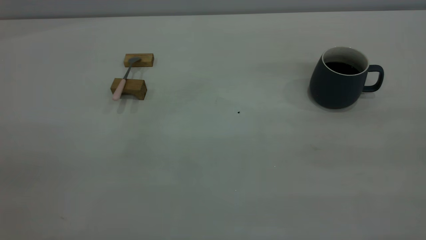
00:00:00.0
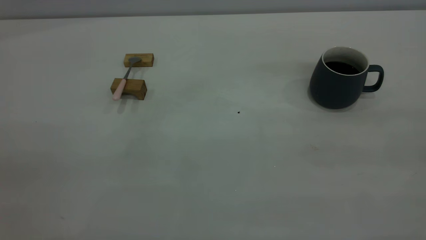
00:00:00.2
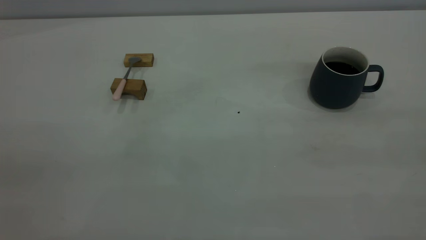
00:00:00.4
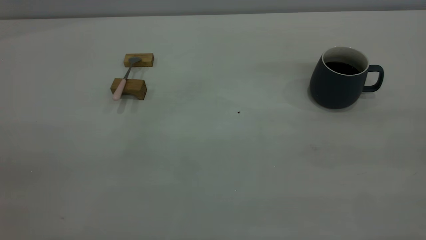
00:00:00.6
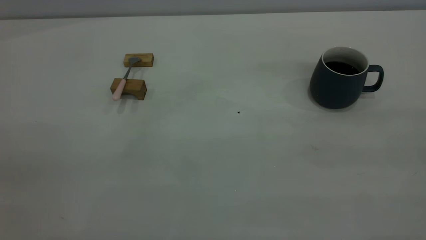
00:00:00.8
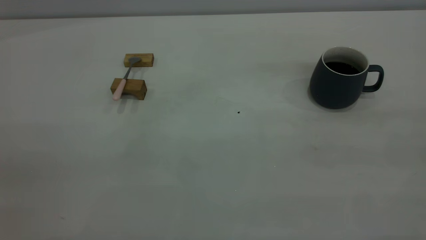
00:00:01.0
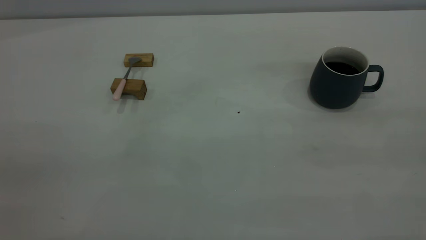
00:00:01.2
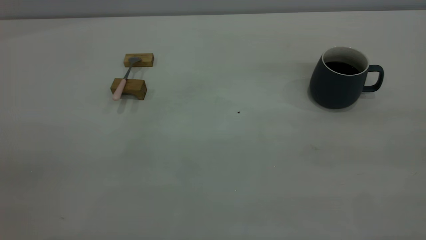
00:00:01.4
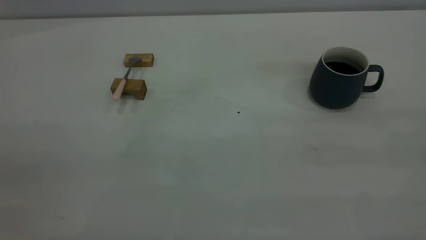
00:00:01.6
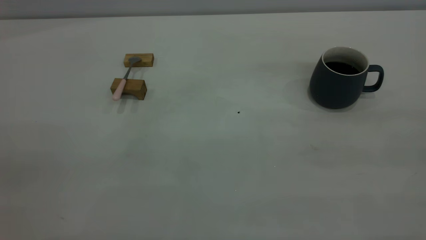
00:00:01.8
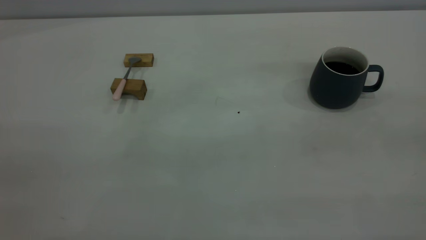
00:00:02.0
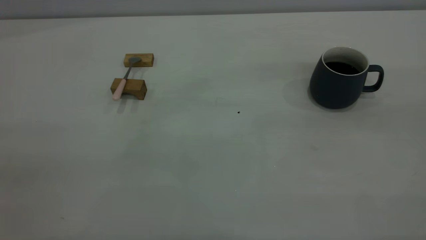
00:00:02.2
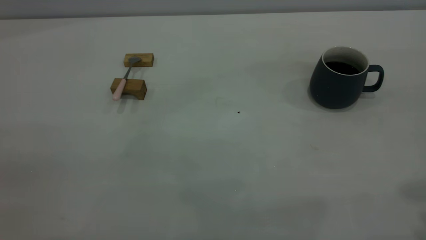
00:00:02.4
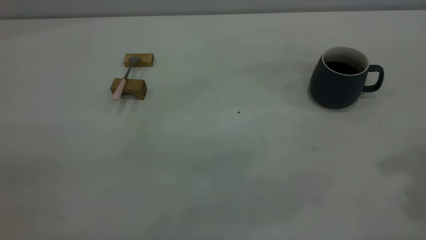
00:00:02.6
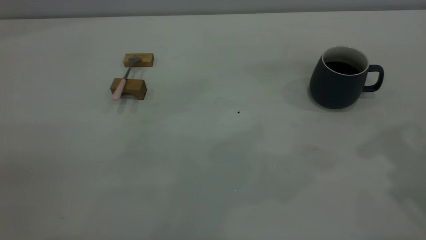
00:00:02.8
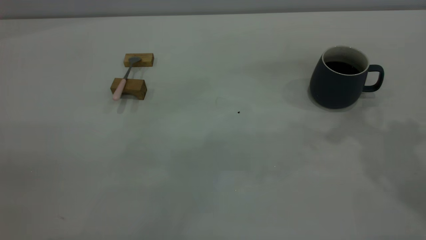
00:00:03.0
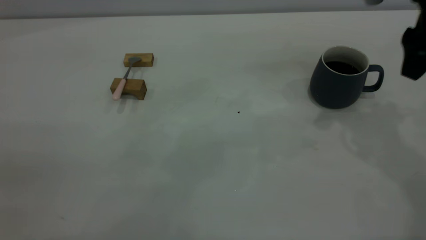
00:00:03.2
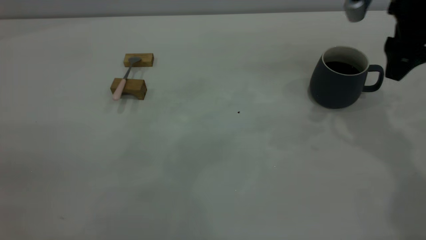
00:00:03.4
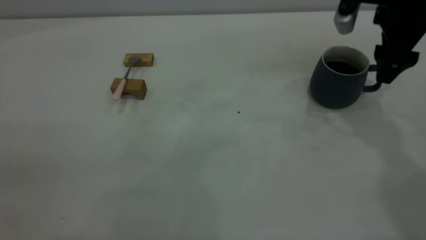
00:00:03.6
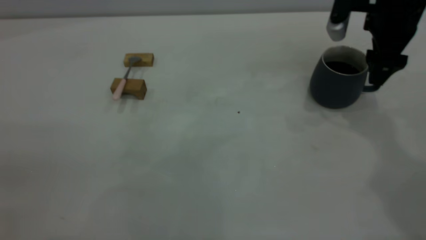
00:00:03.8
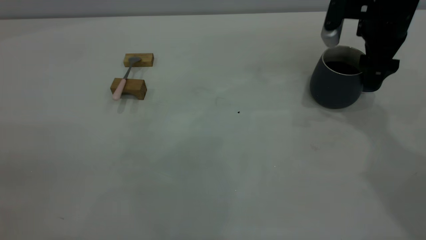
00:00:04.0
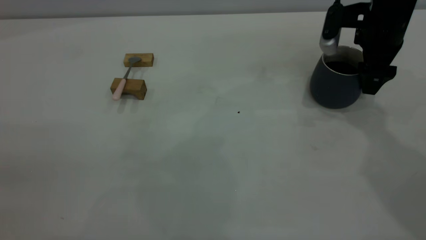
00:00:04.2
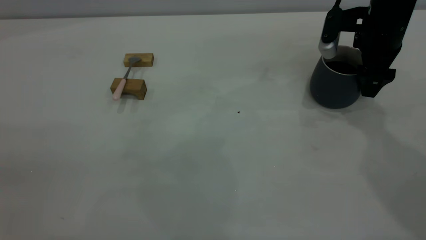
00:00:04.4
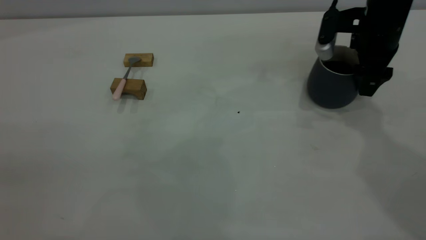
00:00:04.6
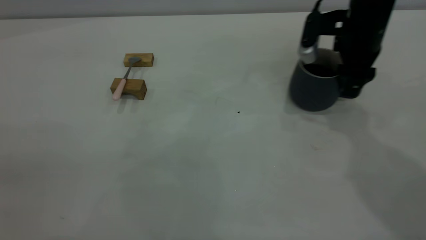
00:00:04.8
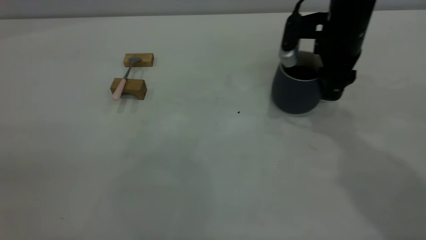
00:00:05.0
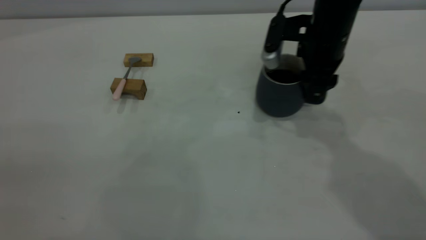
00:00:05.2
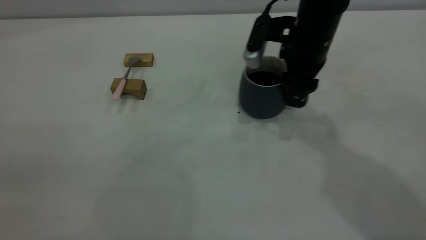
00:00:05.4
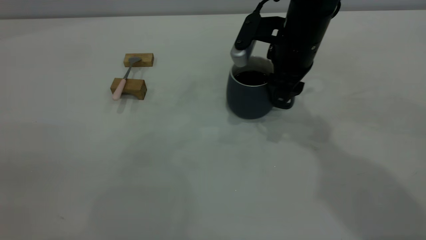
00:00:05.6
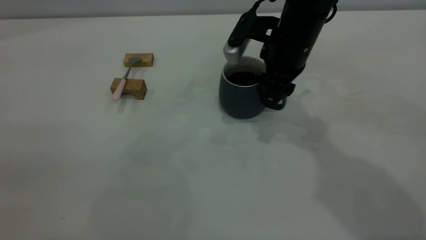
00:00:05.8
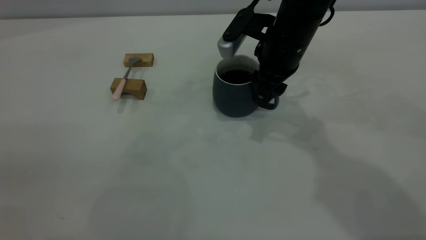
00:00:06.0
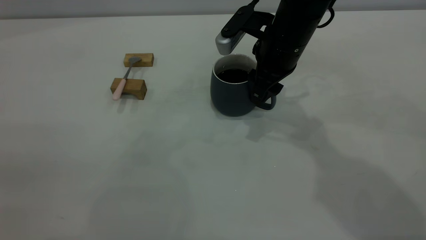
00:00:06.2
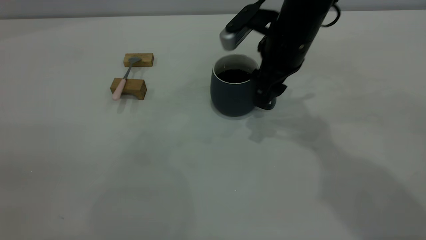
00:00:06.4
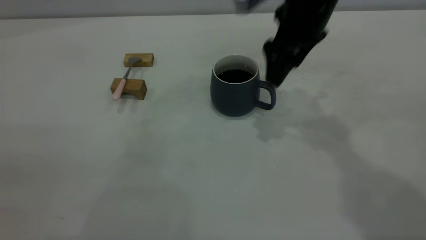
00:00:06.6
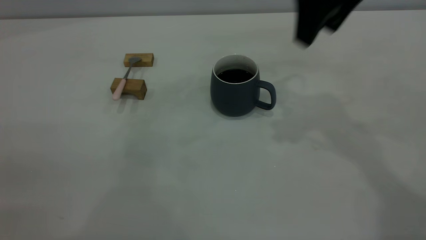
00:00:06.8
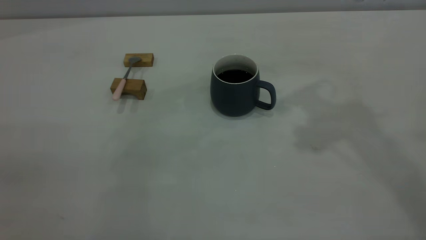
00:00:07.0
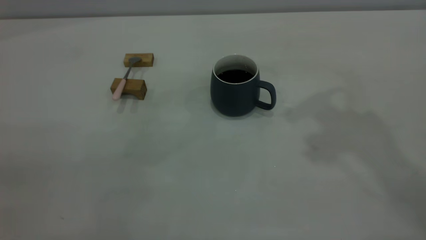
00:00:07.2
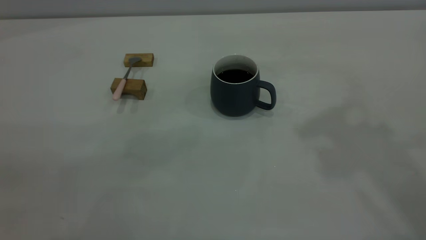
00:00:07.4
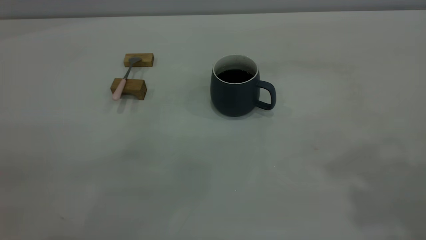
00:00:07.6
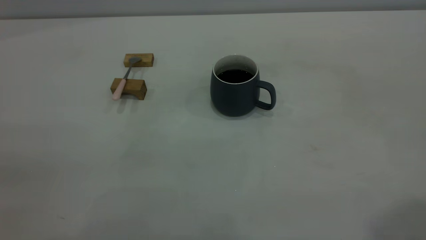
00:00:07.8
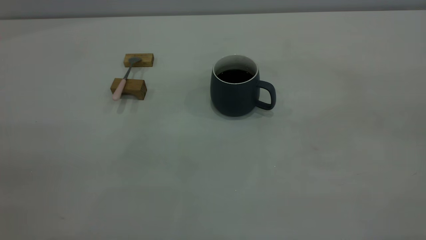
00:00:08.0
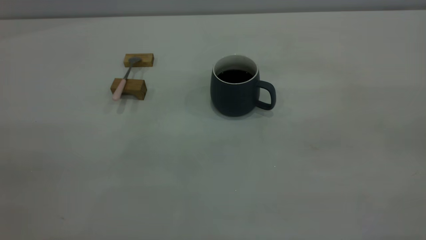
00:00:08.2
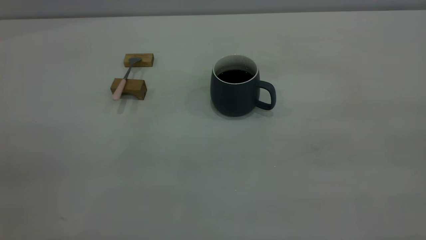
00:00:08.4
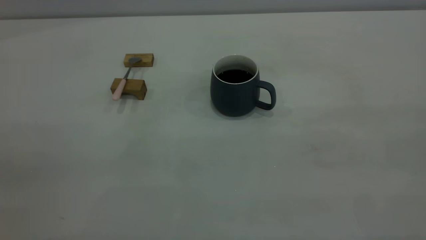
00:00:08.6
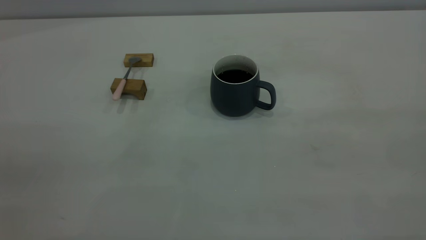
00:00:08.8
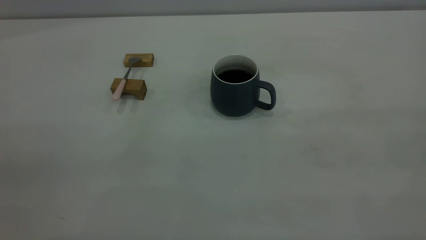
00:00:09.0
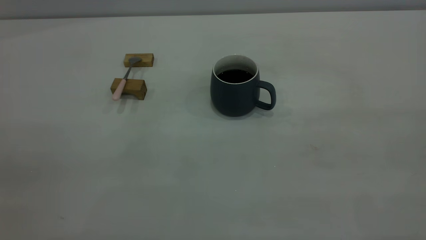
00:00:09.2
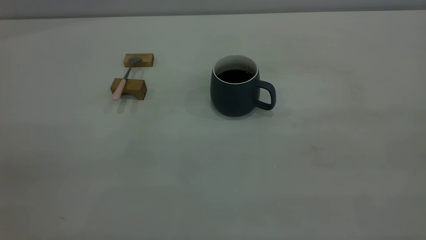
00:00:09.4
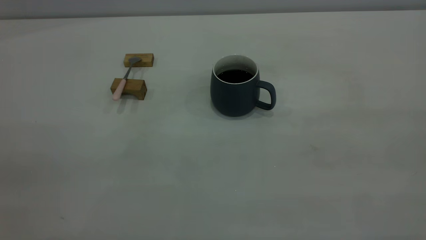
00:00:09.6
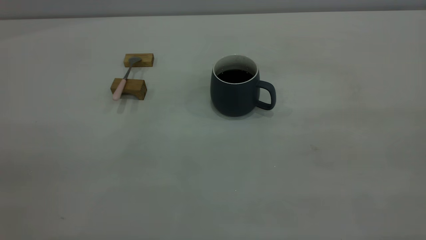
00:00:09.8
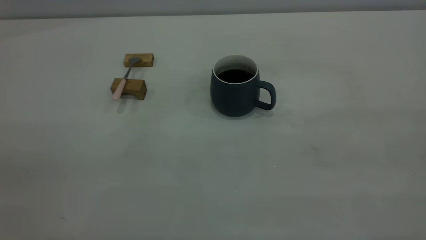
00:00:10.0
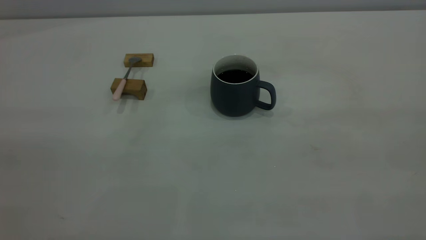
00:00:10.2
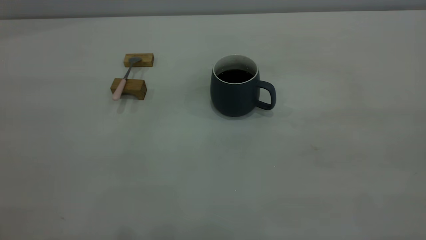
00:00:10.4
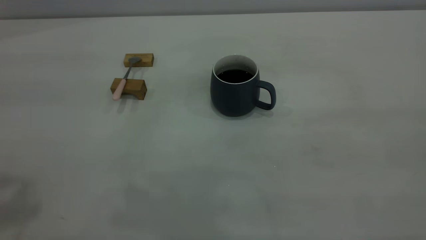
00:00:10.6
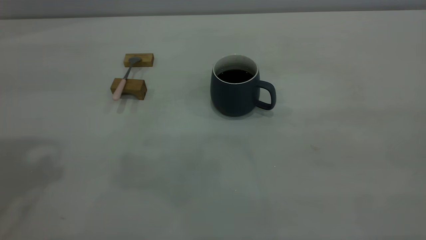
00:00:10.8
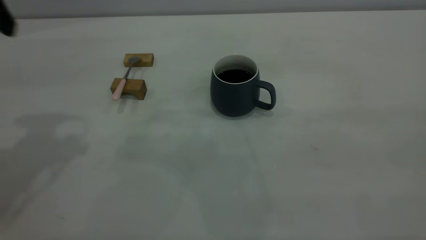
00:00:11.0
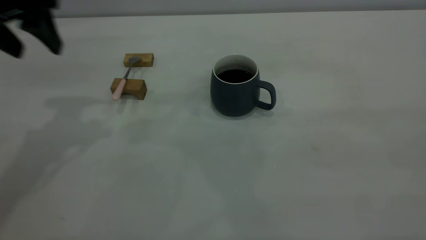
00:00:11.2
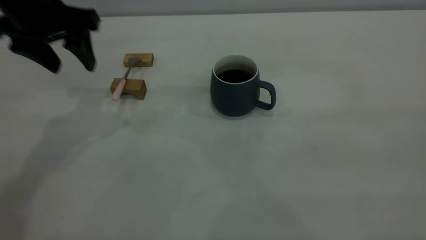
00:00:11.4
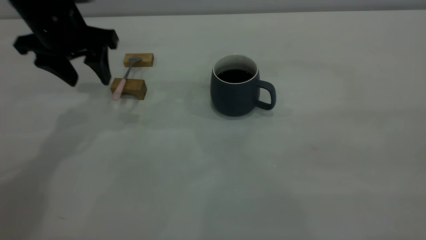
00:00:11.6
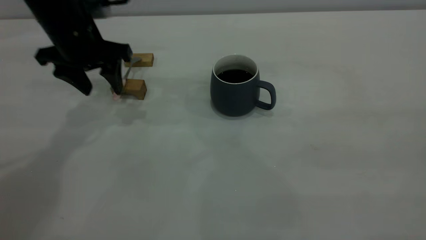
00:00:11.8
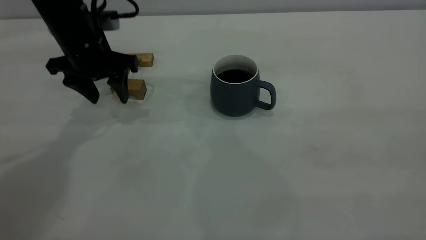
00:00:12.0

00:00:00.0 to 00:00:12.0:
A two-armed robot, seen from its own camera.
Step, 00:00:00.0 to 00:00:06.6: Move the cup with coffee to the center of view.
00:00:00.0 to 00:00:01.6: Neither gripper changes place.
00:00:03.0 to 00:00:04.4: The right gripper travels downward and forward by about 20 cm.
00:00:04.4 to 00:00:06.0: The right gripper heads to the left, covering about 15 cm, and closes up.
00:00:06.0 to 00:00:07.6: The right gripper is displaced upward, backward and to the right by about 40 cm, and opens its fingers.
00:00:10.4 to 00:00:12.0: The left gripper heads forward and downward, covering about 40 cm.

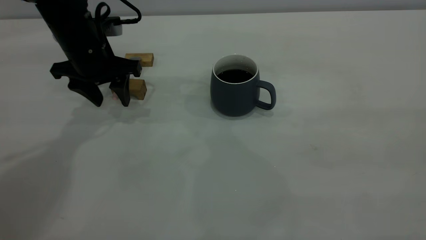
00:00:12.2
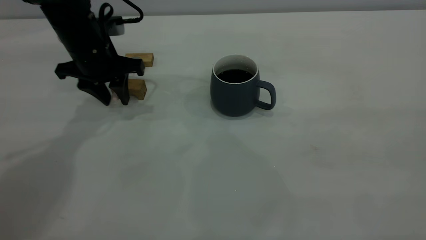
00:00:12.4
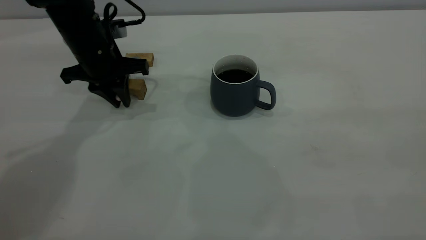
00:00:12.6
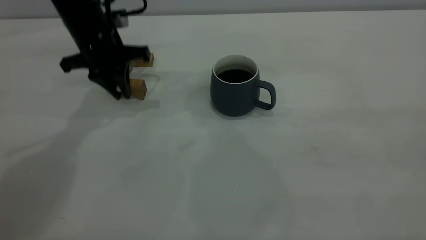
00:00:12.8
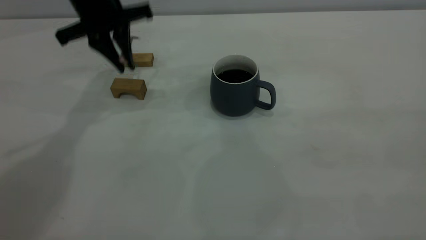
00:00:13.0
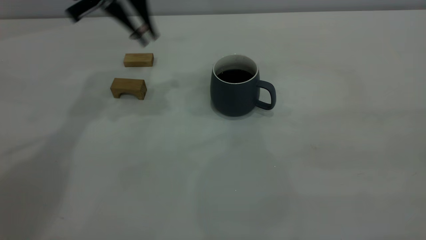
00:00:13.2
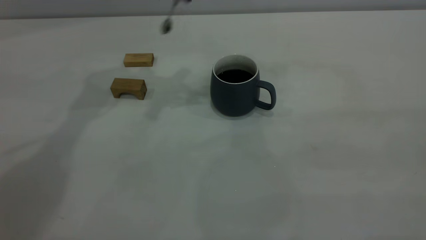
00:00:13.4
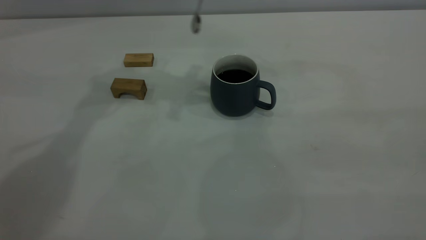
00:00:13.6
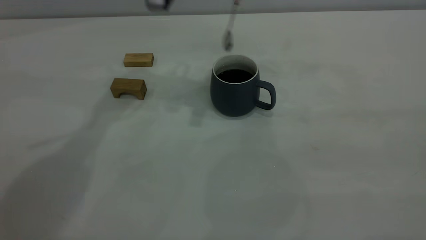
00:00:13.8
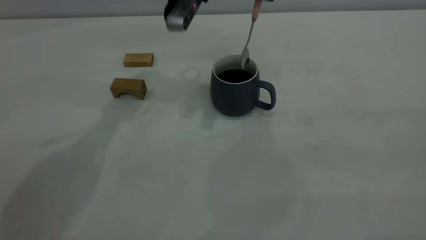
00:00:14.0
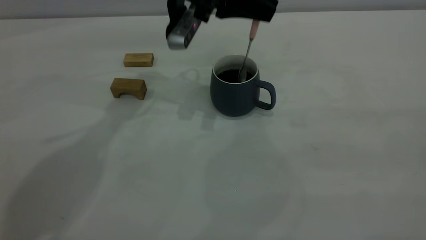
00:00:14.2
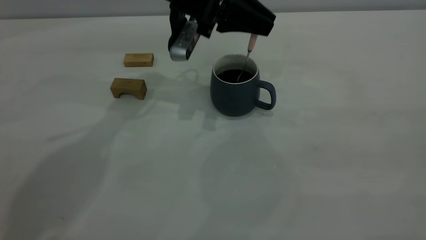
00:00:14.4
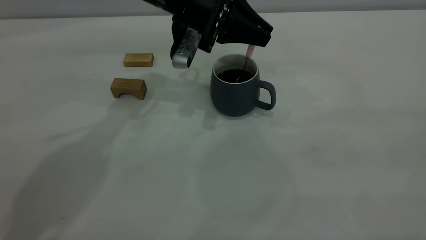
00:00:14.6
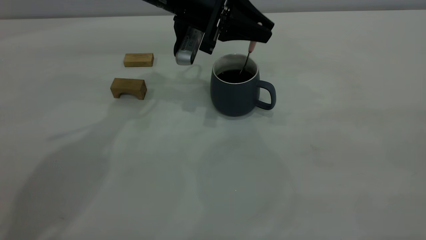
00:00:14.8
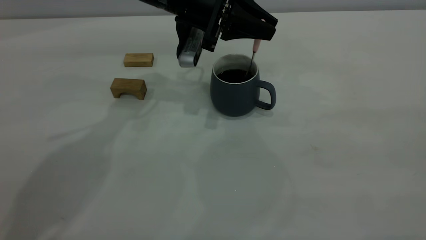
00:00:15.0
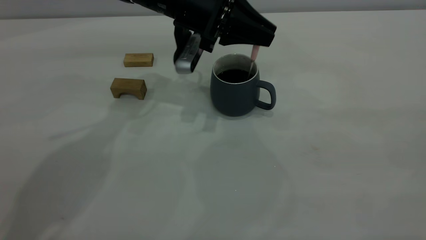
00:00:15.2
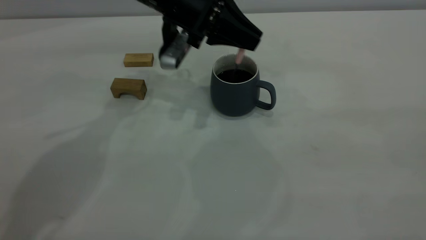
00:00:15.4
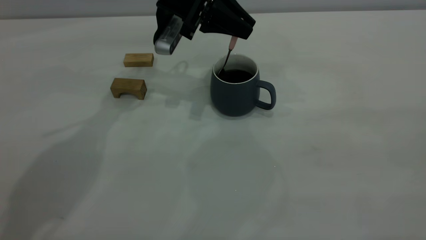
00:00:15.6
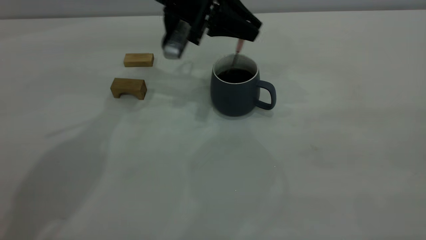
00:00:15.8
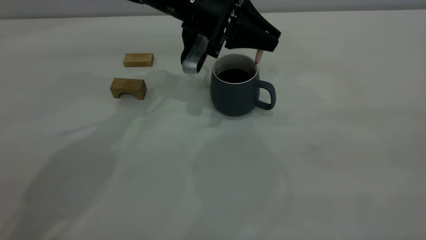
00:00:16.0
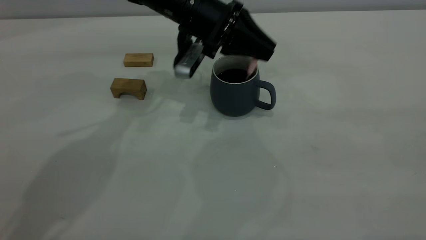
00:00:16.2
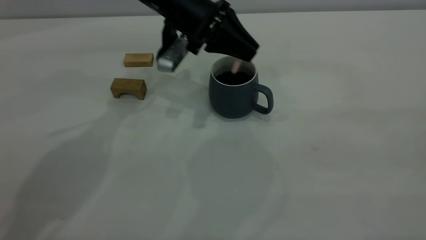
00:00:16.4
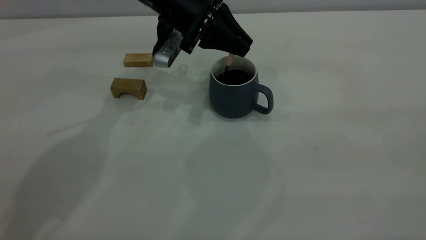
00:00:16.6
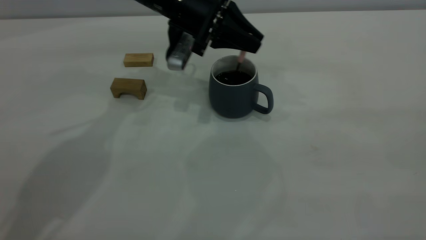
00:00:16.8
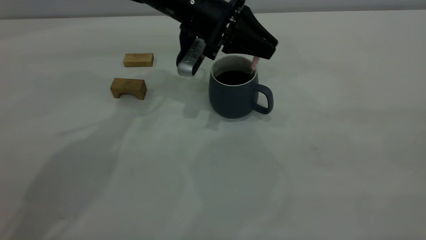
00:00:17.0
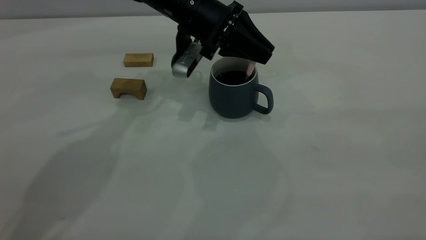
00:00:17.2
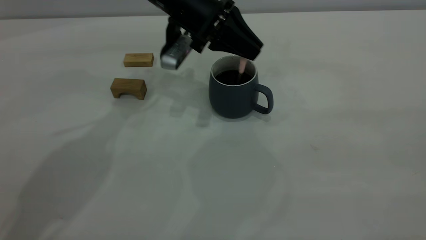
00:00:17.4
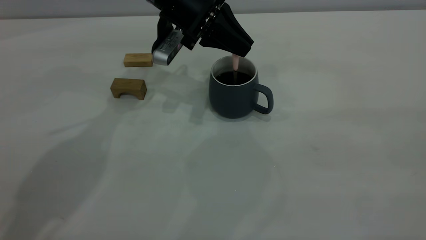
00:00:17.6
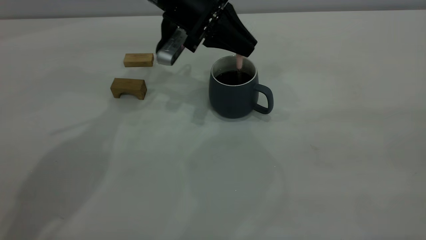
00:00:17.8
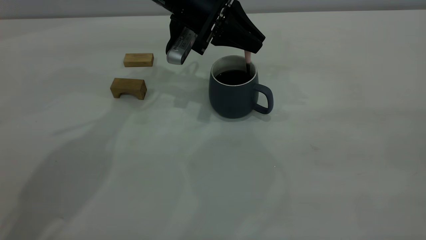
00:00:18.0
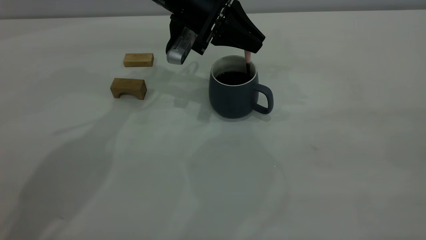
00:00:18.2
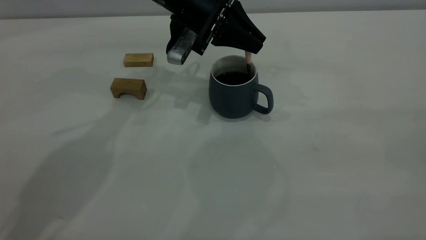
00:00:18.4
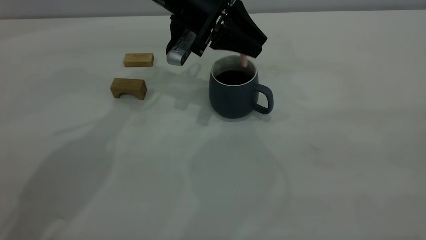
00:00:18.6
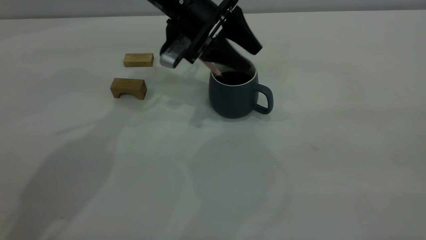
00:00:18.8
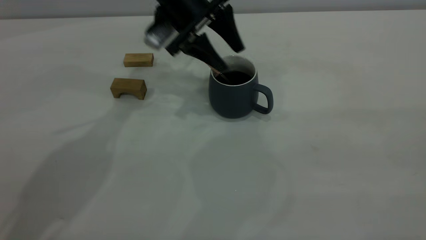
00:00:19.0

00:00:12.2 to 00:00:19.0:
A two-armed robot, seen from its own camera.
00:00:12.2 to 00:00:13.6: The left gripper shifts some 20 cm upward and to the right, and closes up.
00:00:13.6 to 00:00:15.0: The left gripper heads downward, covering approximately 10 cm.
00:00:15.0 to 00:00:17.6: The grippers make only small movements.
00:00:17.6 to 00:00:19.0: The left gripper opens.
